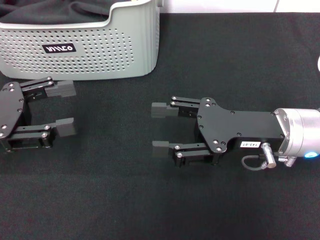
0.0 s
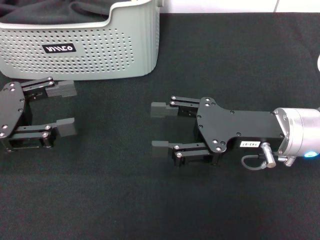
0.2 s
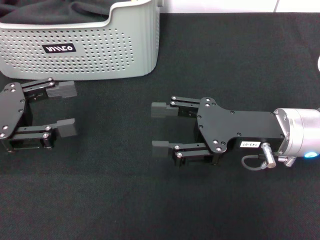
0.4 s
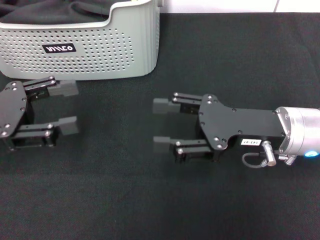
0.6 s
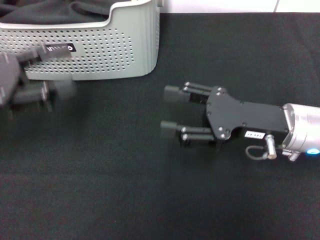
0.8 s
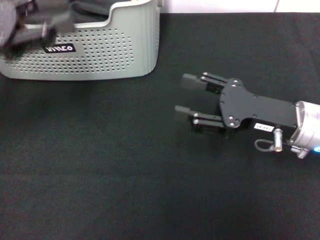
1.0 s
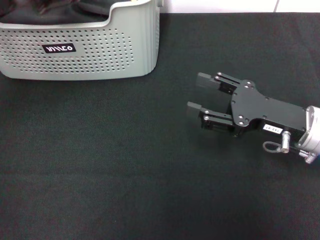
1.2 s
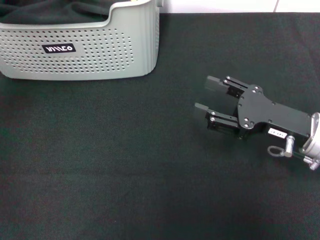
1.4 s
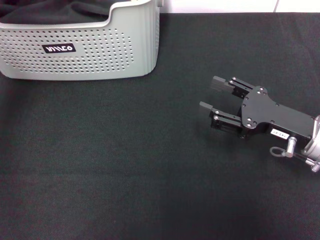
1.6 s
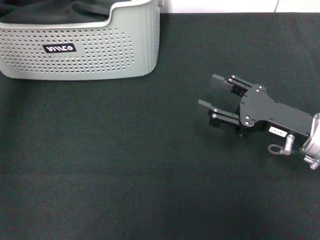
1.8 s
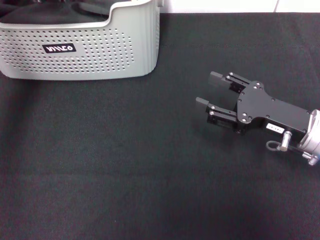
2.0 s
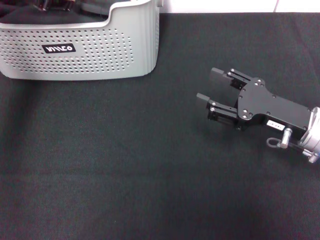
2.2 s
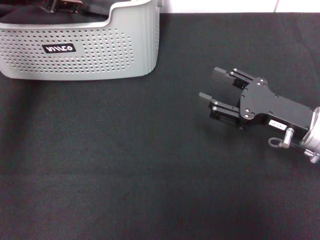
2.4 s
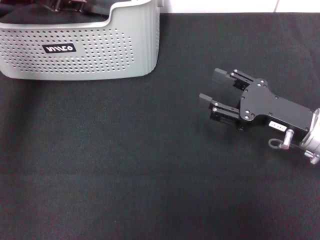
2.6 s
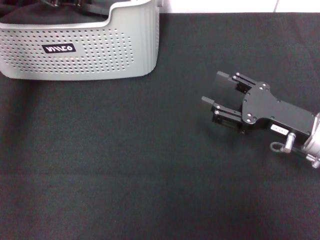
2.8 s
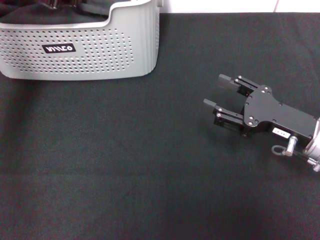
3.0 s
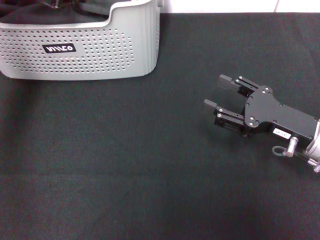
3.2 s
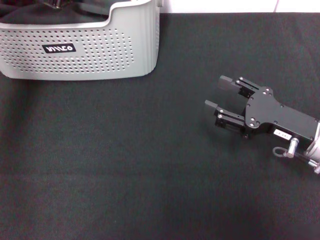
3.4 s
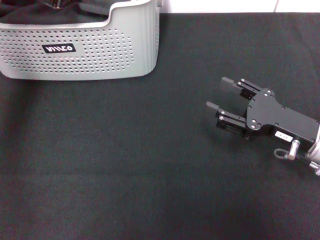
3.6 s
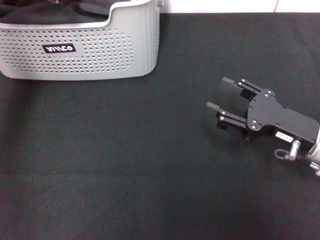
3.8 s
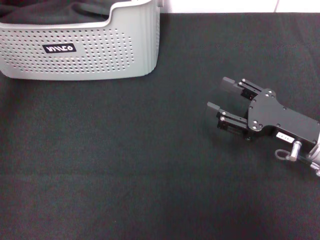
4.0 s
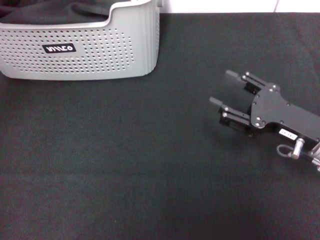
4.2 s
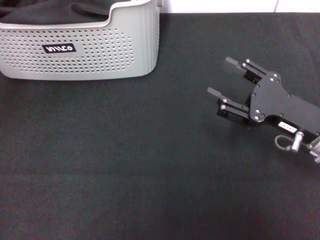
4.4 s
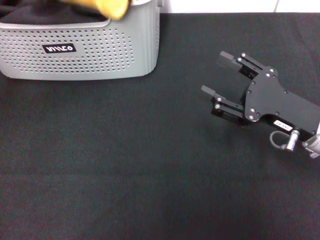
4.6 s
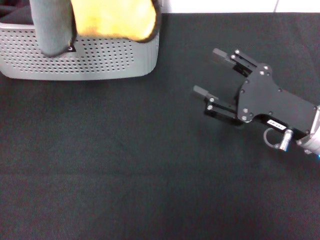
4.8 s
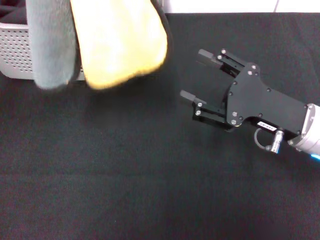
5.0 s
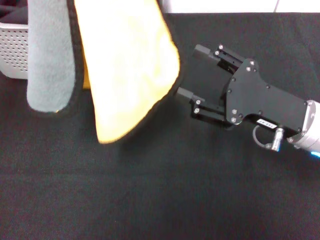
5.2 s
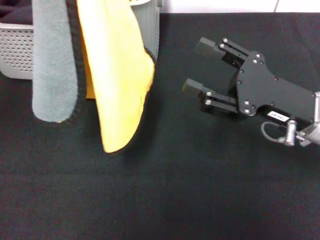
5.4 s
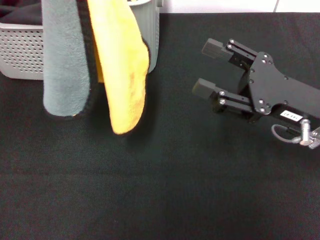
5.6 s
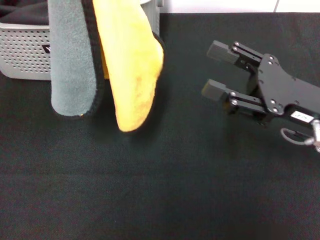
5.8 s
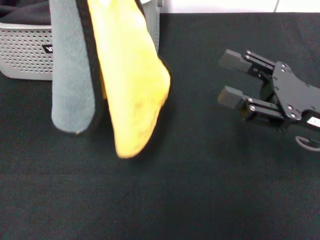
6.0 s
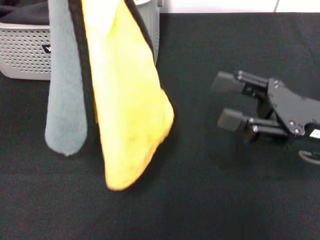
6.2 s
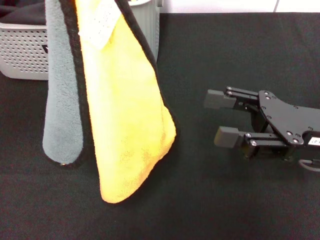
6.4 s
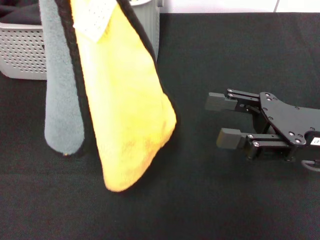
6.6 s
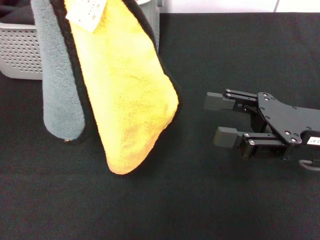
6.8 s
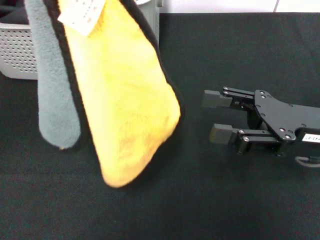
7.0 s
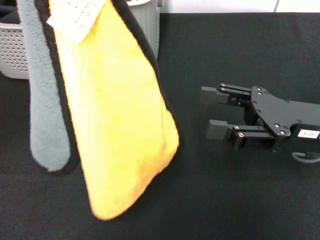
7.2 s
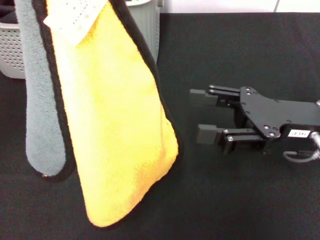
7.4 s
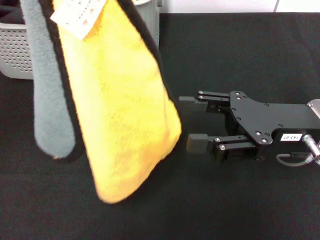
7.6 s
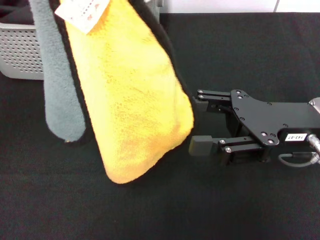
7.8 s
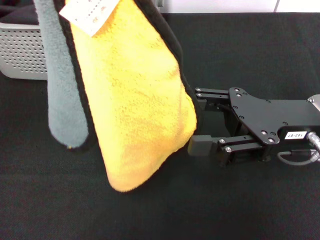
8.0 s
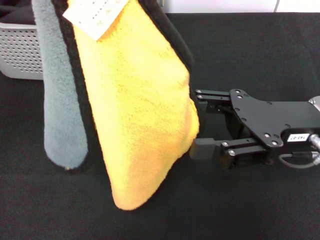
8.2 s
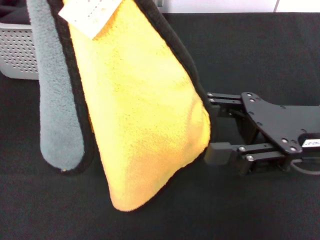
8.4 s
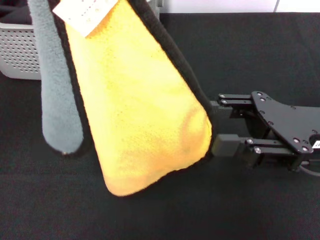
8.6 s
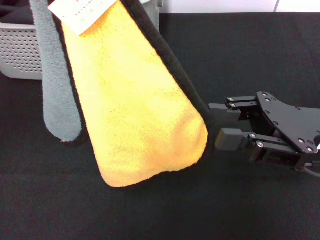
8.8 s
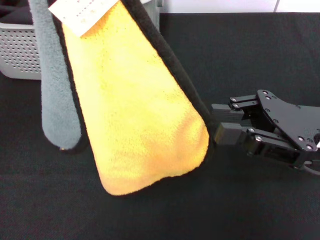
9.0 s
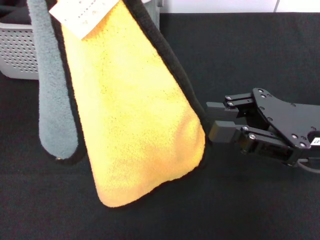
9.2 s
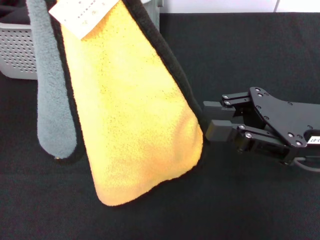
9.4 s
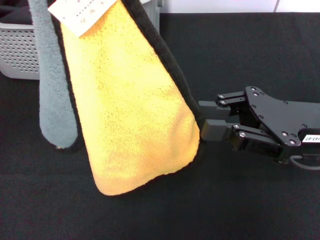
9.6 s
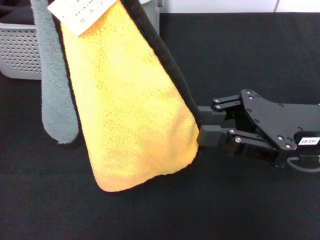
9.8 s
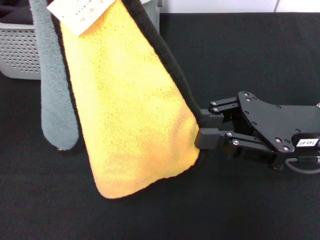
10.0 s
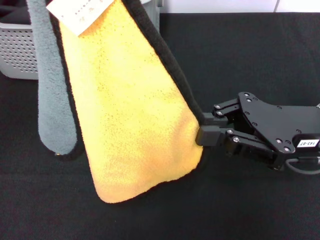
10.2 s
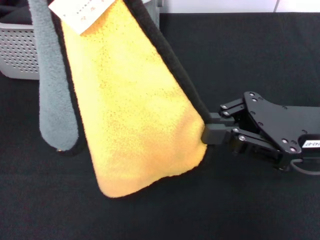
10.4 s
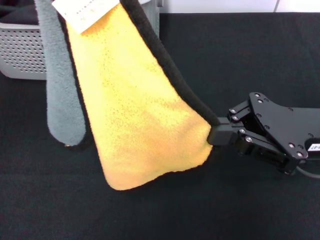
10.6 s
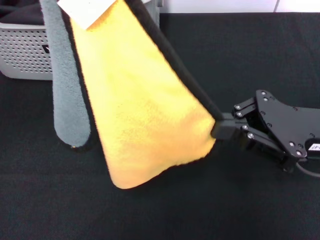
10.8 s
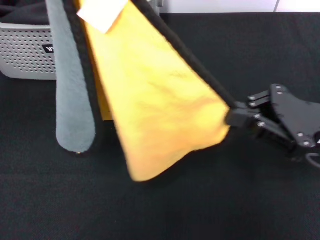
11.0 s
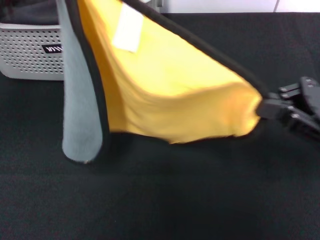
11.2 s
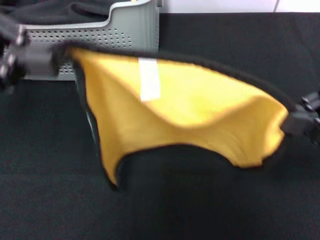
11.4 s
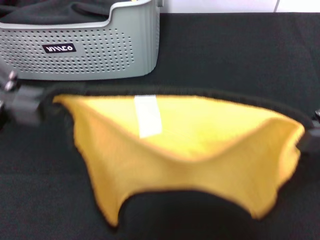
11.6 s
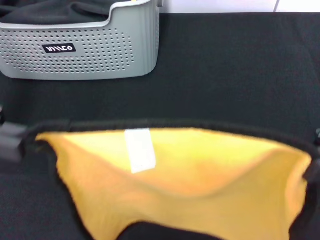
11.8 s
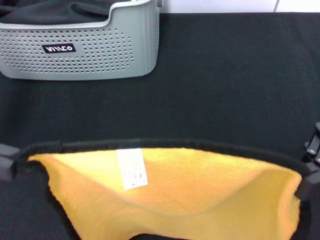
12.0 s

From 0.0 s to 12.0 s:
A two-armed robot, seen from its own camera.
Task of the whole recording: pick up the towel from the storage box and lay it flat on the black tablecloth.
Step, from 0.0 s to 3.8 s: Pick up a towel with the left gripper.
Step, from 4.0 s to 10.4 s: Spread the towel flat with the left gripper.
From 0.0 s to 1.6 s: The right gripper travels to the right by roughly 5 cm. The left gripper heads upward, forward and to the right, covering roughly 20 cm.
From 3.0 s to 4.4 s: The left gripper goes some 10 cm backward and upward, and closes up.
From 7.6 s to 9.0 s: The right gripper closes up.
From 9.0 s to 10.4 s: The grippers move only a little.
From 10.4 s to 12.0 s: The right gripper moves about 5 cm, while the left gripper heads downward, covering about 10 cm.

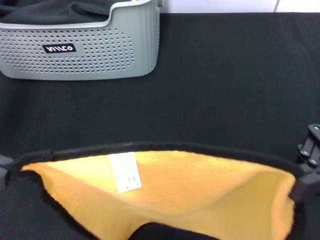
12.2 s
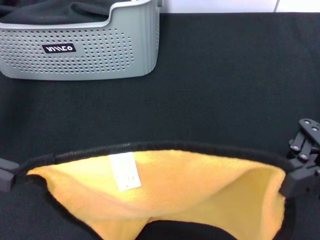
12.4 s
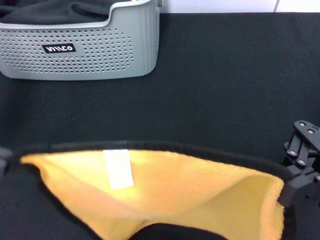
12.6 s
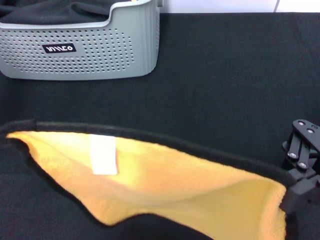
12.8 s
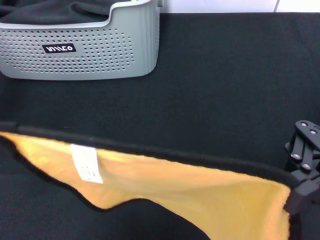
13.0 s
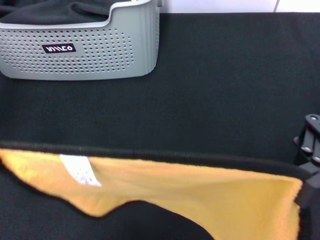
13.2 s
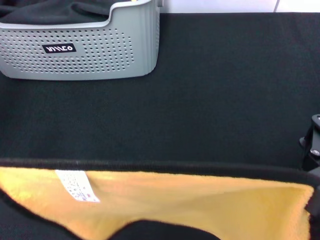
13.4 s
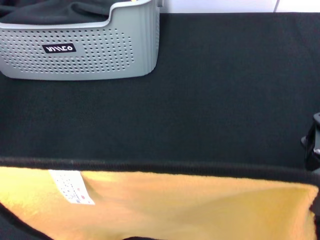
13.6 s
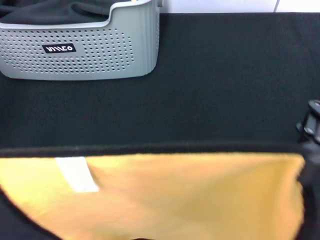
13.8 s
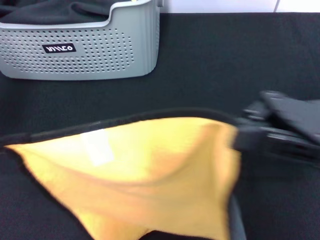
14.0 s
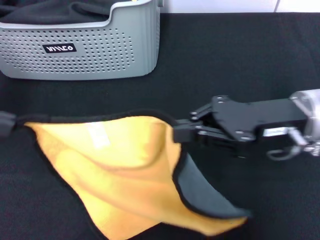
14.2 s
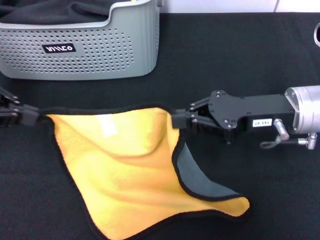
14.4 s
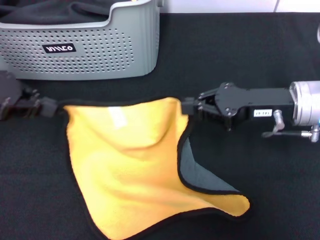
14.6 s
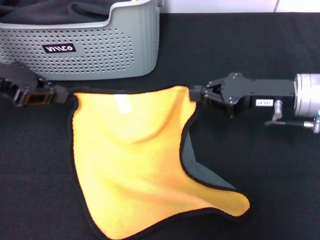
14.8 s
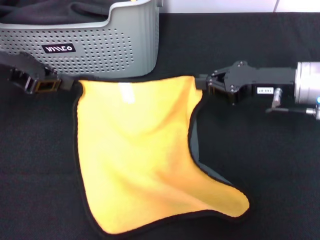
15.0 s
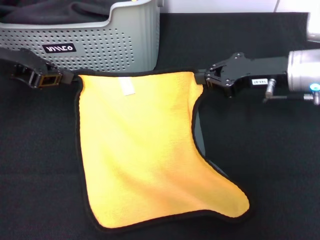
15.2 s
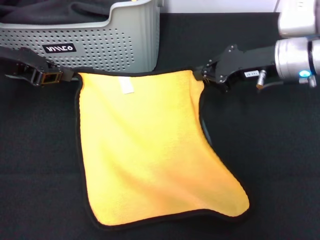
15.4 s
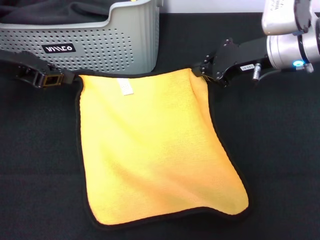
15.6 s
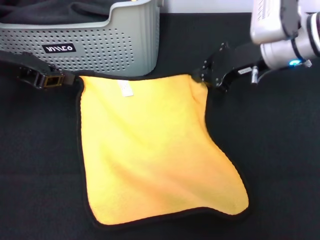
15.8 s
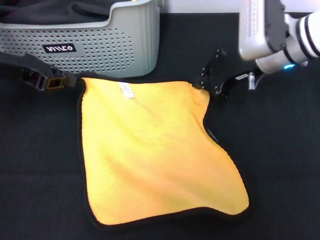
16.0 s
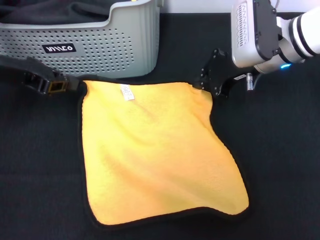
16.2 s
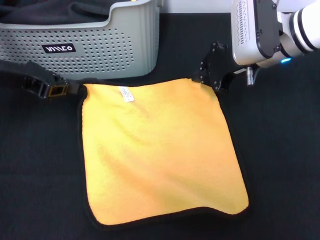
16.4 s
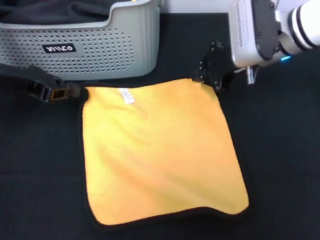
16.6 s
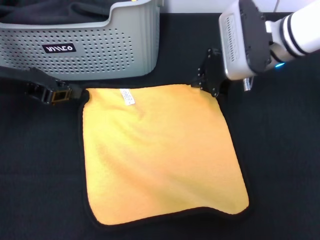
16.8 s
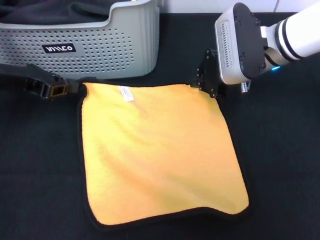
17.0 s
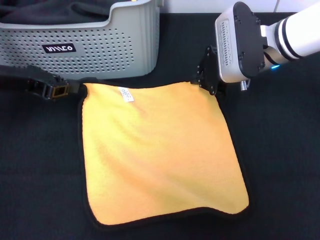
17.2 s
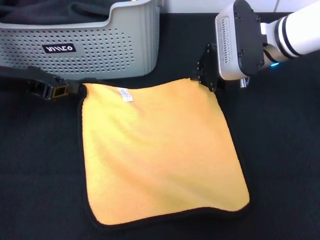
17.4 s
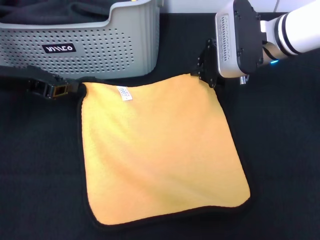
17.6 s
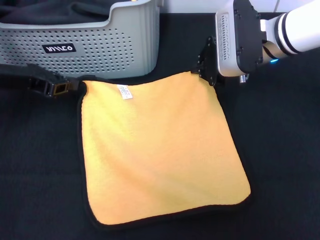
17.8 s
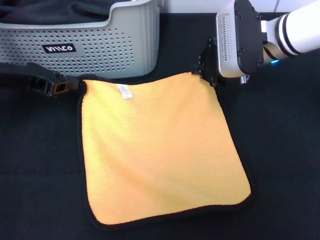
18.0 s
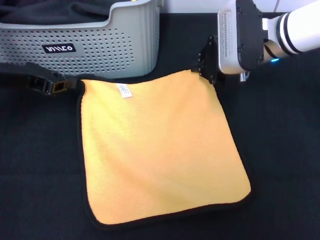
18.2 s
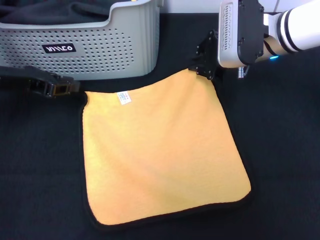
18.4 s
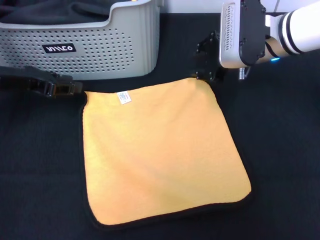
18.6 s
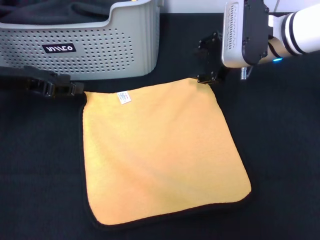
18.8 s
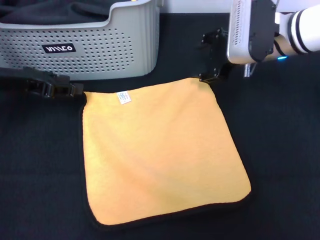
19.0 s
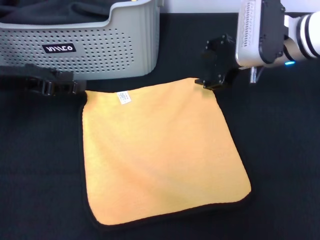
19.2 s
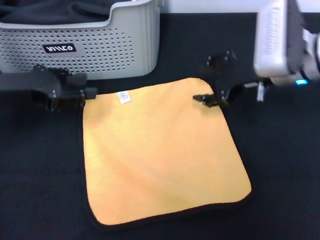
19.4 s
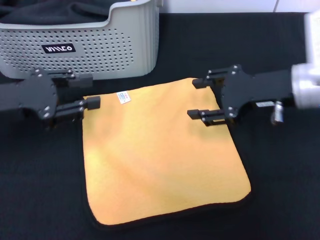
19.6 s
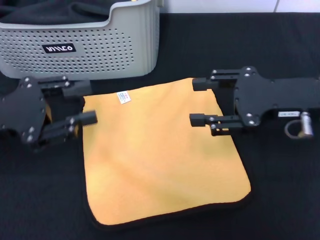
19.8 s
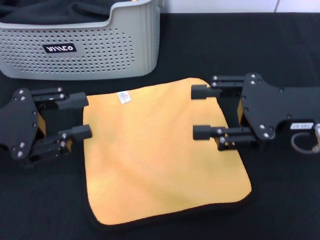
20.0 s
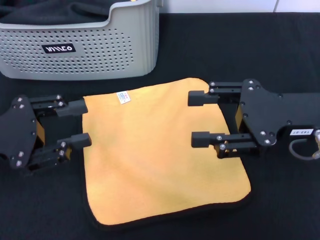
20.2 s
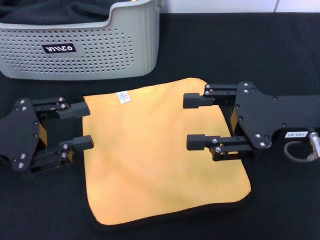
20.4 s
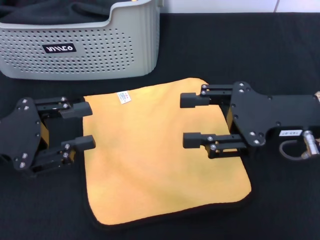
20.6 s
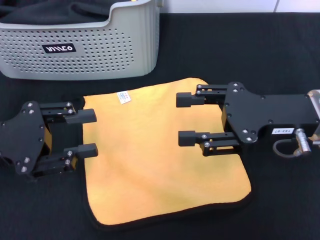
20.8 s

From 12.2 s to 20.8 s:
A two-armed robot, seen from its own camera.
Task of the whole recording: pick up the towel from the storage box and lay it flat on the black tablecloth.
Step, from 12.2 s to 18.6 s: Spread the towel flat with the right gripper.
From 12.2 s to 13.6 s: The left gripper moves upward, about 5 cm.
From 13.6 s to 15.0 s: The left gripper shifts about 20 cm forward and downward. The right gripper moves forward and downward, some 15 cm.
From 15.0 s to 16.6 s: The right gripper moves to the left and forward, about 10 cm.
From 16.6 s to 18.0 s: The grippers make only small movements.
From 18.0 s to 19.4 s: The right gripper moves some 5 cm, and opens up. The left gripper opens up.
From 19.4 s to 20.8 s: The grippers both shift backward by some 10 cm.
